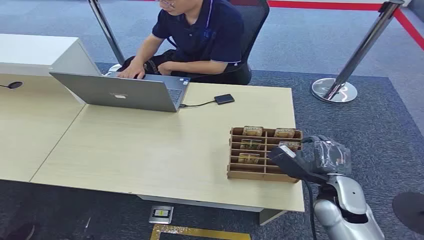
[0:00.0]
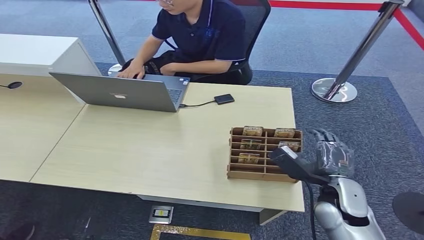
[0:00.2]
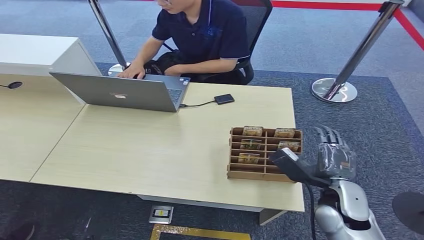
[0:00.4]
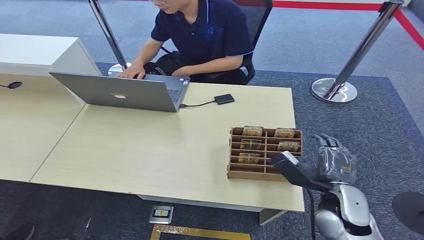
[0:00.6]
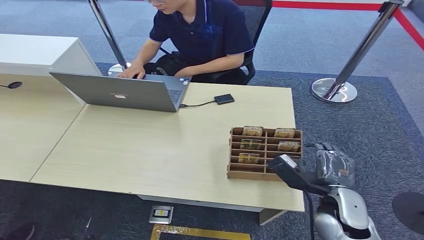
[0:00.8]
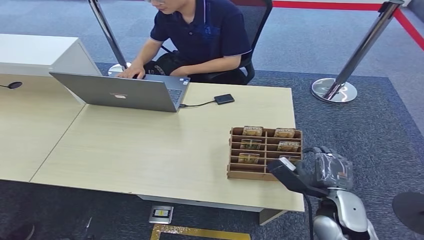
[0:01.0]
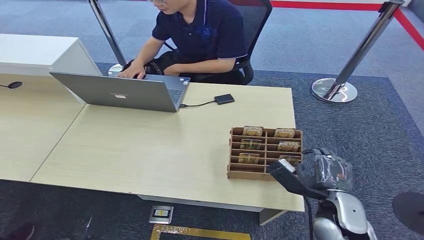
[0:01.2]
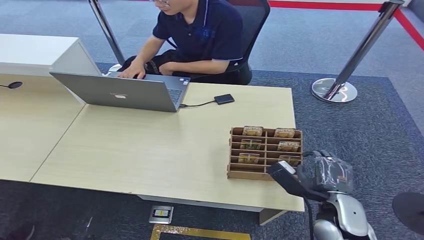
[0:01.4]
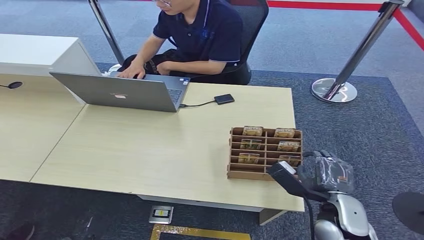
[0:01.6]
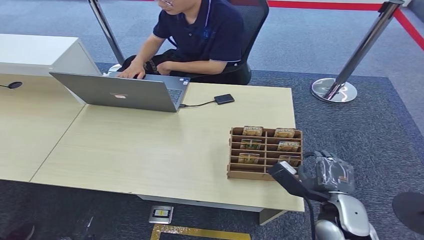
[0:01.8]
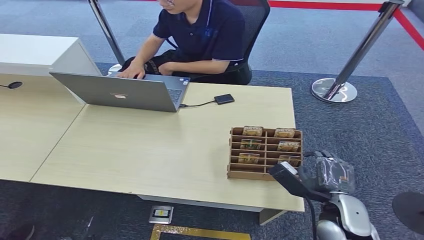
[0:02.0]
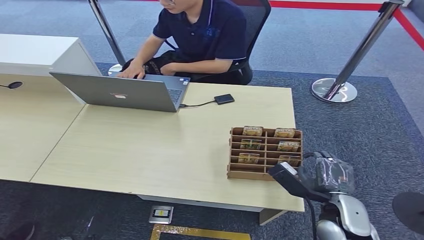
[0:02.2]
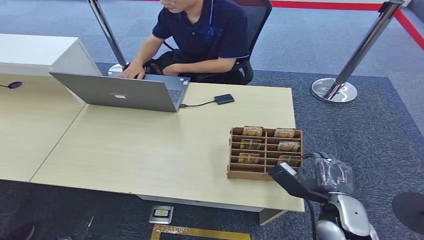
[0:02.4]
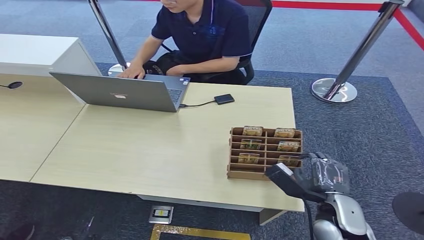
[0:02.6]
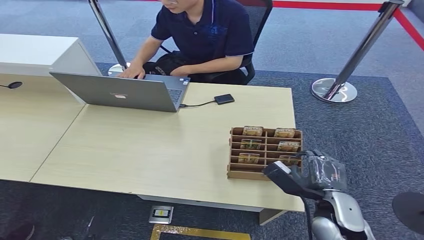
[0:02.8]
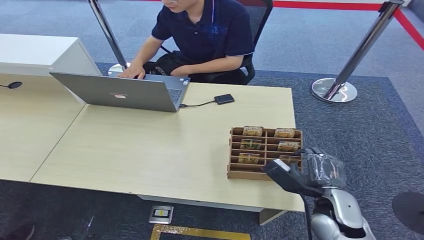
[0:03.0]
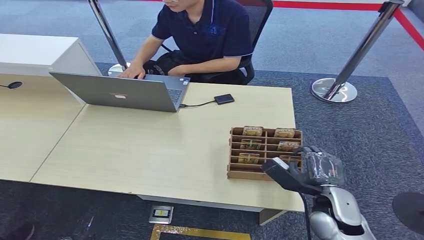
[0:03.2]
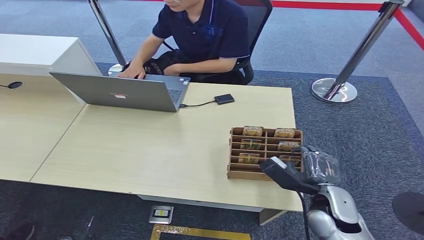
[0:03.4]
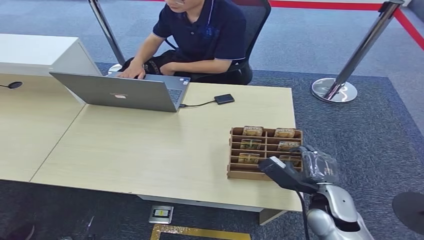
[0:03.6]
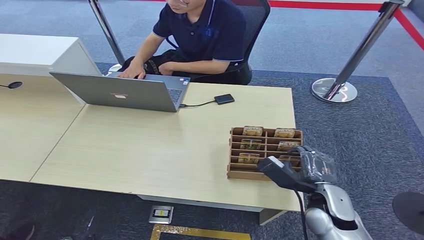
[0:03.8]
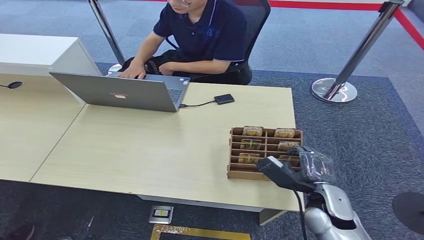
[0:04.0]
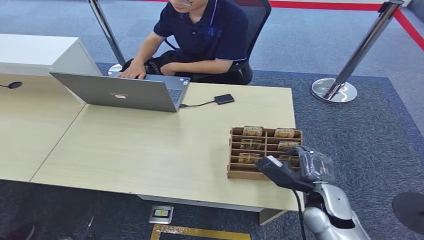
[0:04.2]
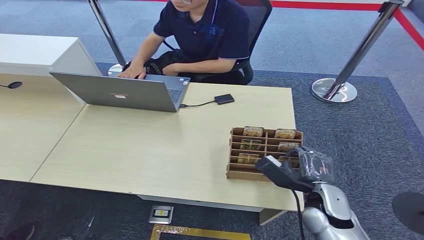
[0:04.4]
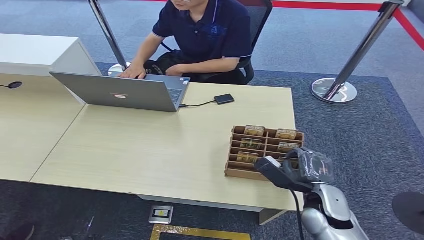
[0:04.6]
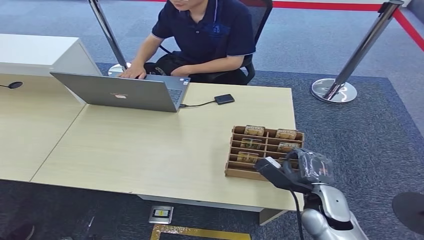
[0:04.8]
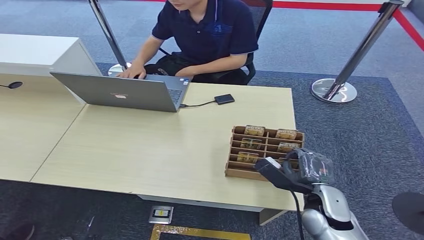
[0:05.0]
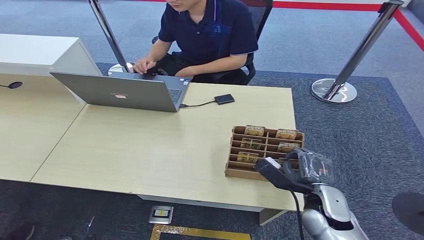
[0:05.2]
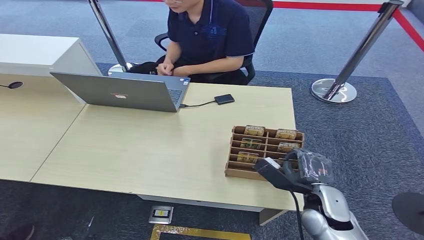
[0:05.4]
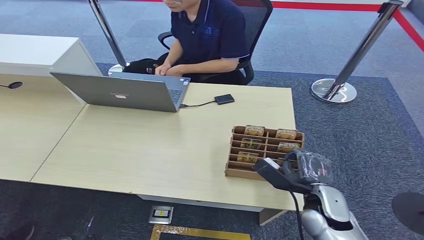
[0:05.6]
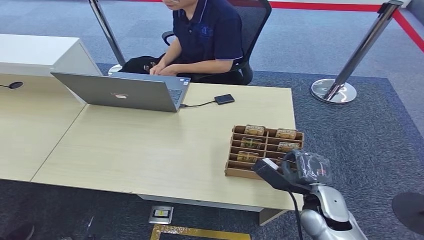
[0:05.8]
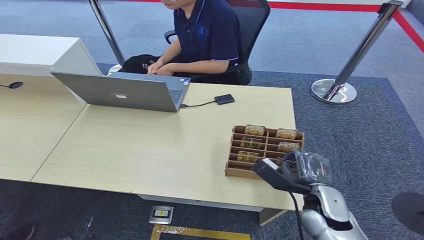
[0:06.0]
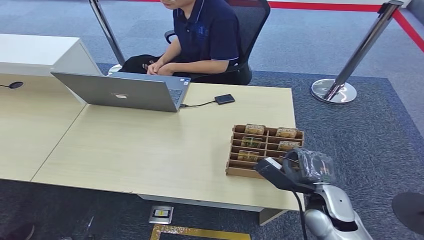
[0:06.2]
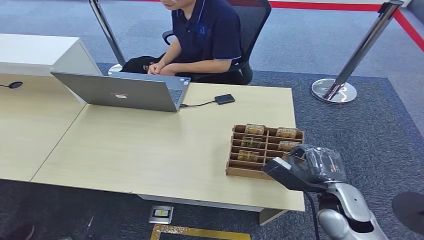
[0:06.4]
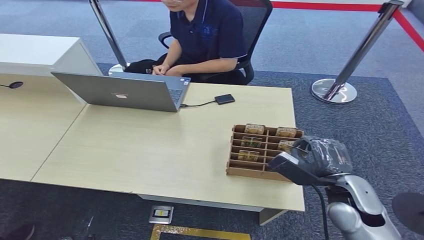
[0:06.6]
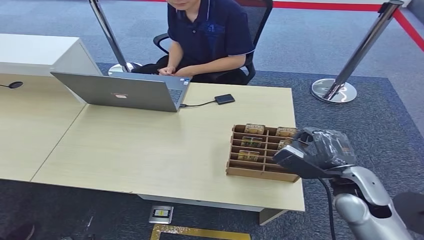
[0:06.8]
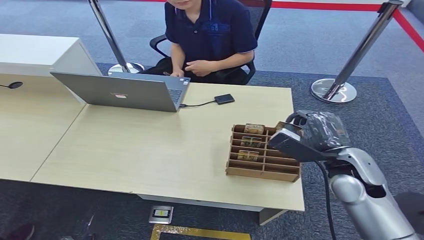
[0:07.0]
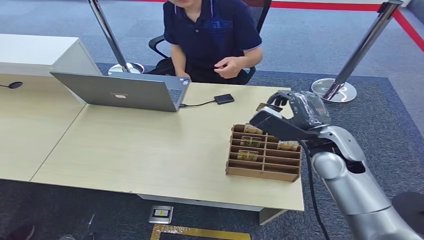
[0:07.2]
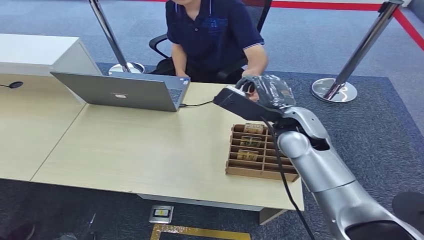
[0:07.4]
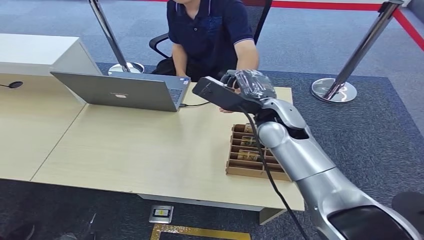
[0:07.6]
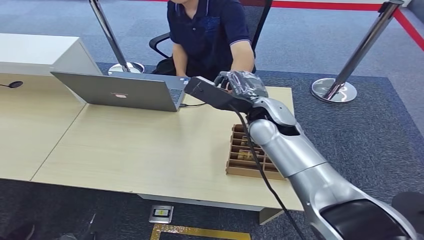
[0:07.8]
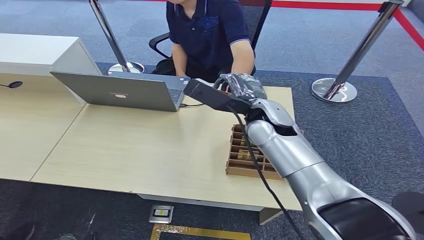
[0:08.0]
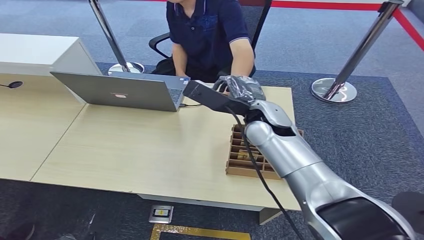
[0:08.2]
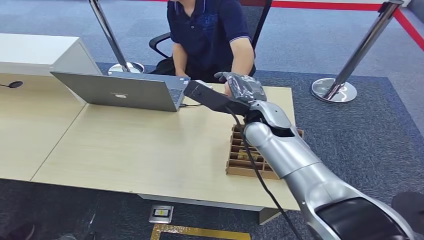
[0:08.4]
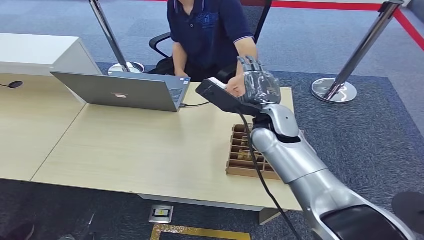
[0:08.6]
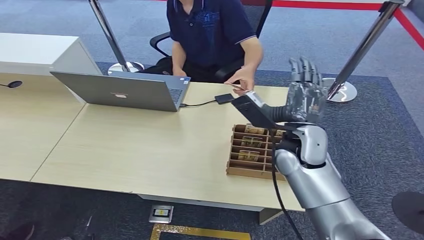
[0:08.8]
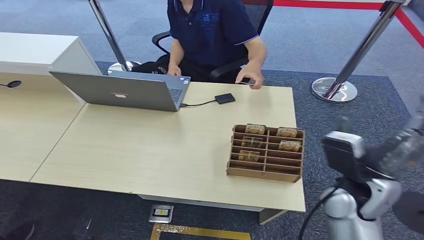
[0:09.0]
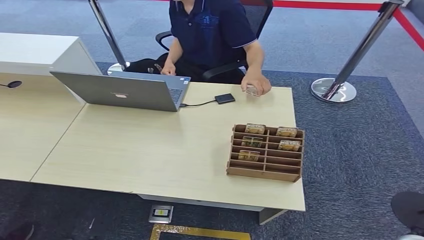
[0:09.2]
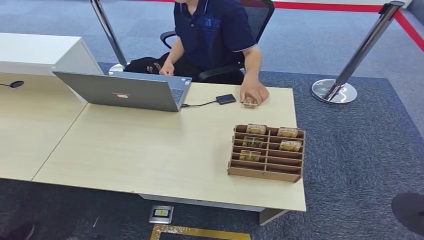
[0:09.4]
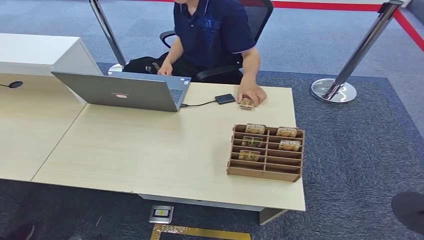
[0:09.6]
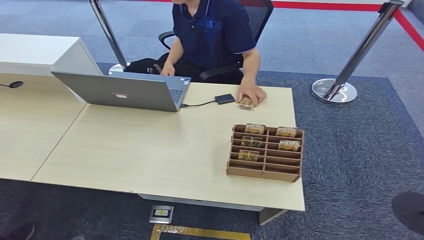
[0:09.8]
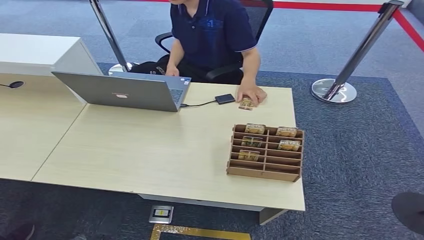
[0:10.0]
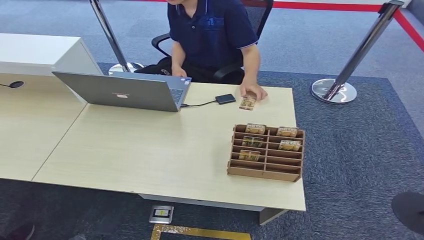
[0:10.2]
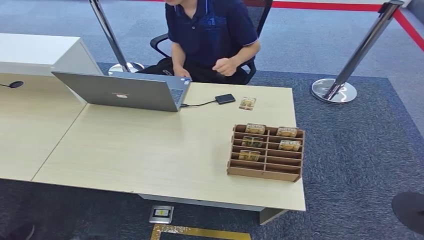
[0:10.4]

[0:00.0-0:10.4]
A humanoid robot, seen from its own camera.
Step, 0:00.0 to 0:06.2: Pick up the key card from the card box.
Step, 0:06.4 to 0:10.4: Hand the key card to the target.
0:01.4 to 0:03.0: Both hands stay put.
0:03.0 to 0:04.4: The hands make only small movements.
0:04.4 to 0:06.0: Both hands stay about where they are.
0:06.0 to 0:07.4: The right hand travels upward, forward and to the left by some 25 cm.
0:07.4 to 0:09.0: The right hand goes roughly 10 cm backward and to the right.
0:09.0 to 0:10.4: The right hand heads downward and backward, covering some 35 cm.

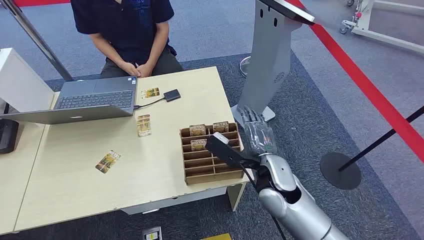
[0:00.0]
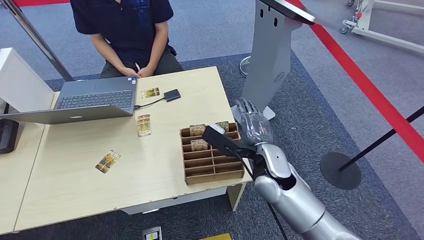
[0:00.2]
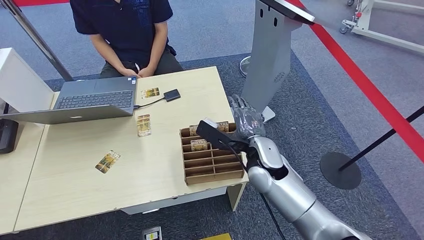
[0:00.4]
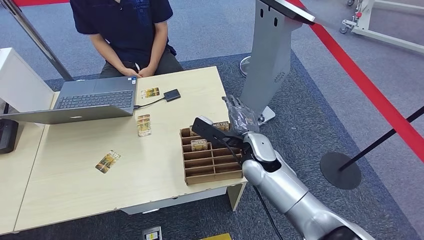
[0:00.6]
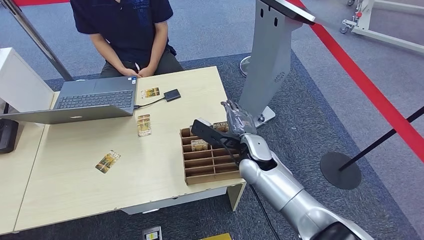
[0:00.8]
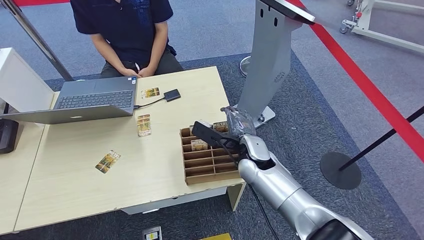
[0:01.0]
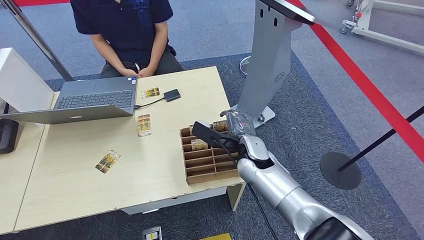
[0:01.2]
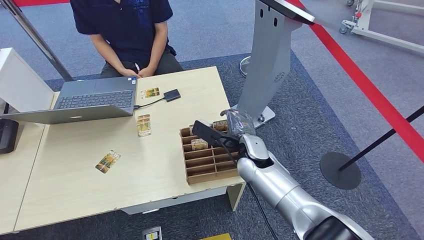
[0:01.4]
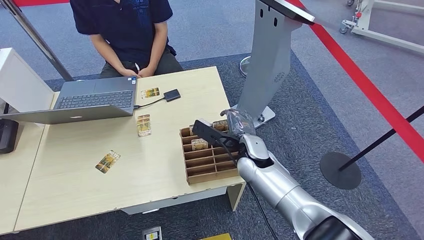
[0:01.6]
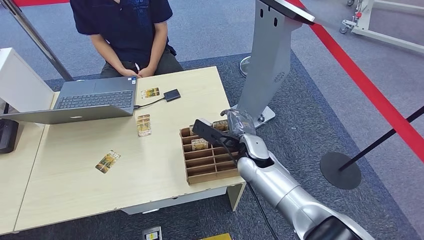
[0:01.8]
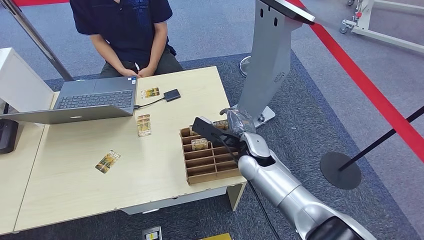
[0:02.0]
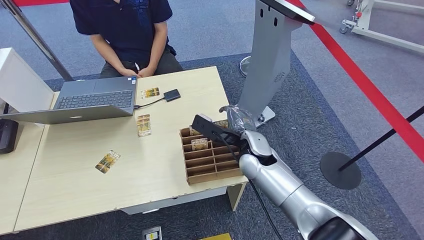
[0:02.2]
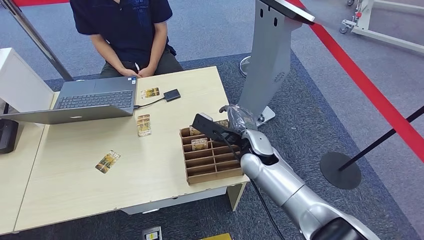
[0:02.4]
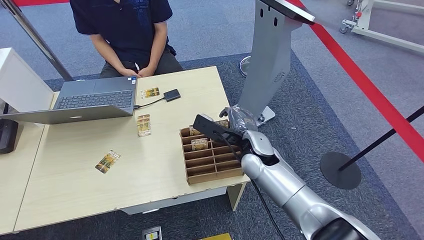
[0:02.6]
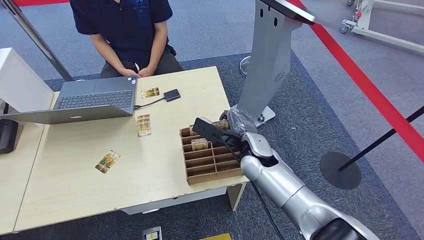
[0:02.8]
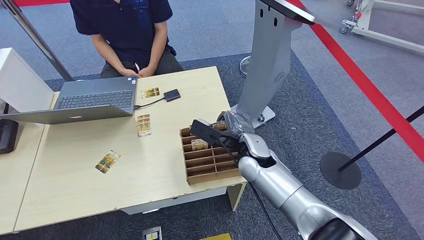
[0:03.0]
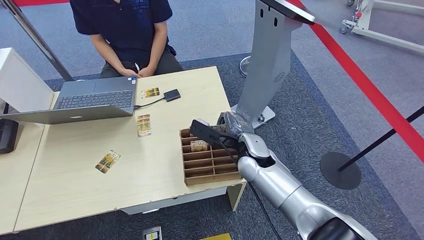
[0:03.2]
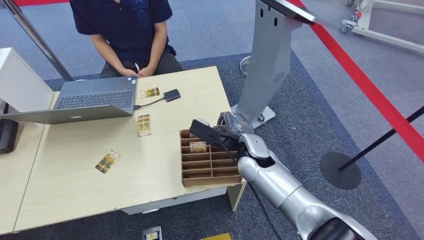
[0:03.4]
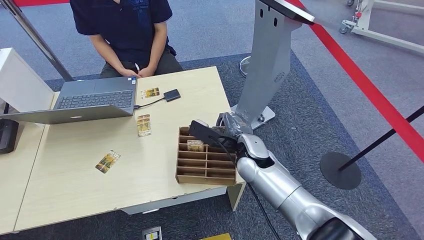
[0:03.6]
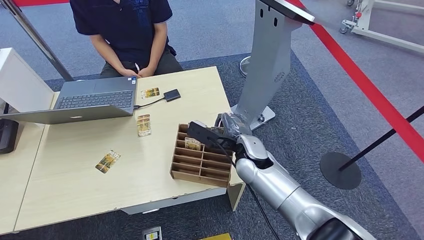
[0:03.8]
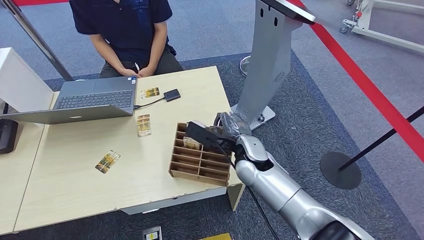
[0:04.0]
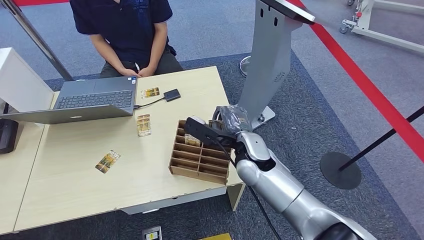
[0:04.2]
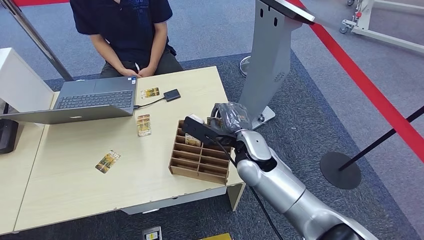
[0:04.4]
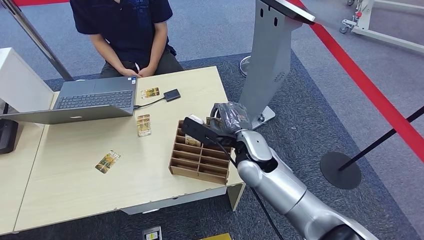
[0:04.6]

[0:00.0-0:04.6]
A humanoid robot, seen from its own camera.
Step, 0:00.0 to 0:04.6: Pick up the key card from the card box.
0:01.6 to 0:04.6: The hands make only small movements.
